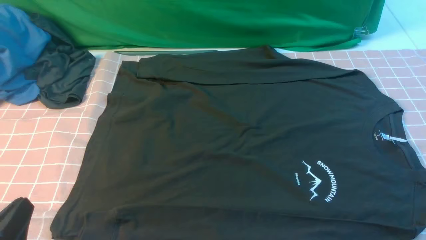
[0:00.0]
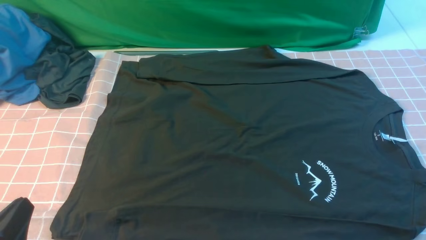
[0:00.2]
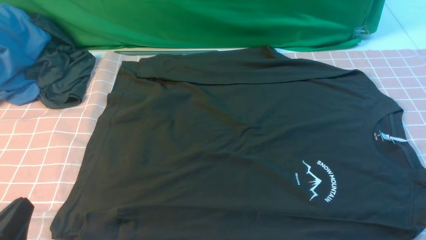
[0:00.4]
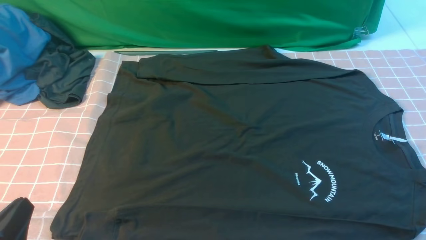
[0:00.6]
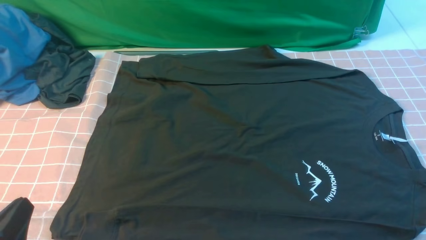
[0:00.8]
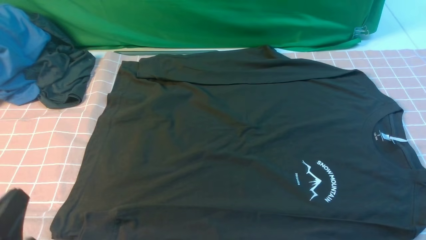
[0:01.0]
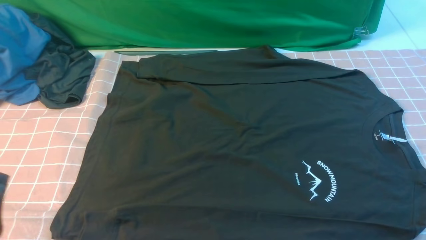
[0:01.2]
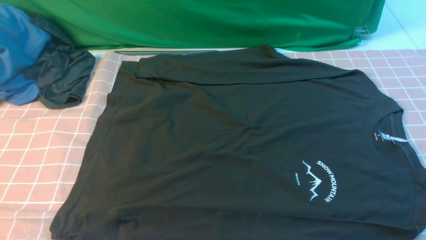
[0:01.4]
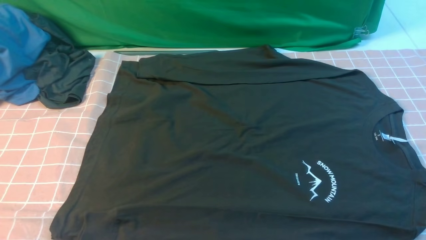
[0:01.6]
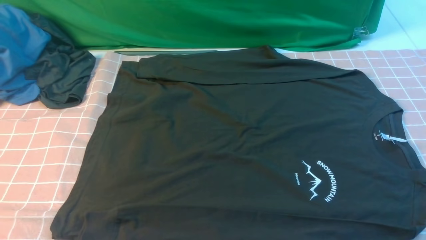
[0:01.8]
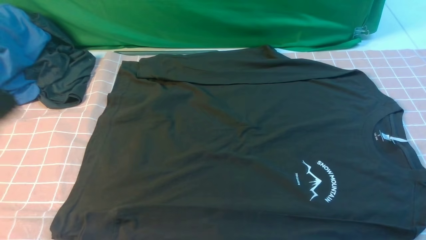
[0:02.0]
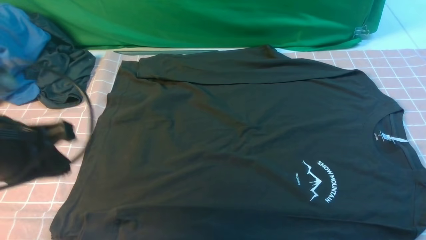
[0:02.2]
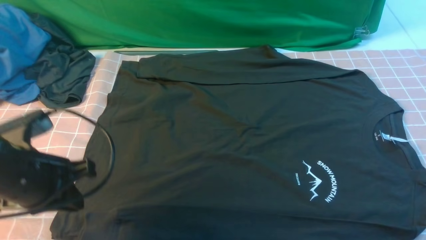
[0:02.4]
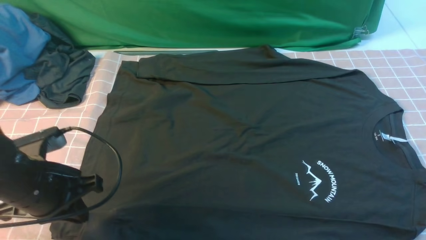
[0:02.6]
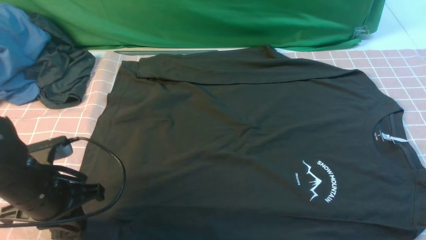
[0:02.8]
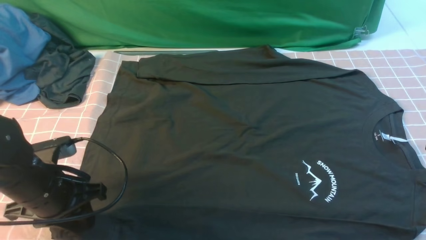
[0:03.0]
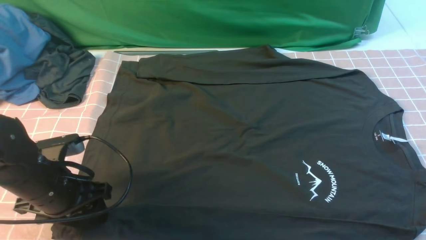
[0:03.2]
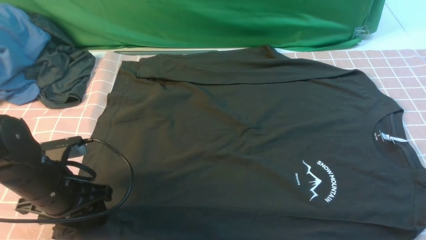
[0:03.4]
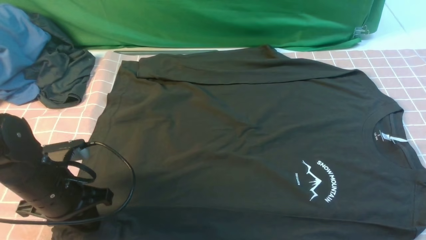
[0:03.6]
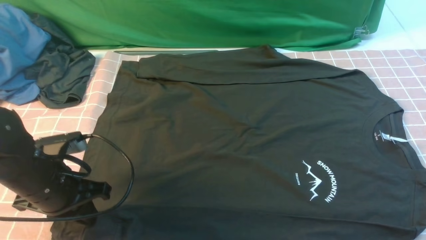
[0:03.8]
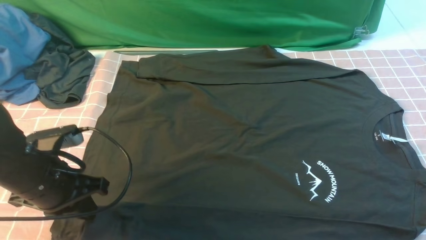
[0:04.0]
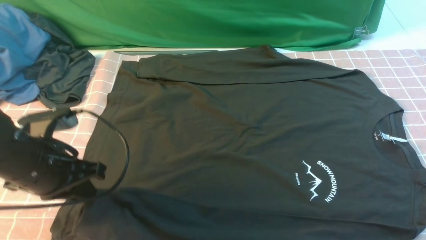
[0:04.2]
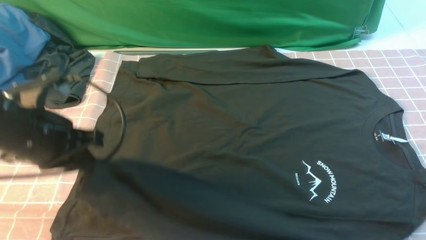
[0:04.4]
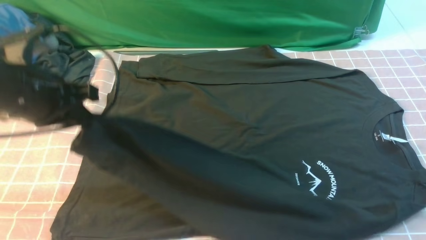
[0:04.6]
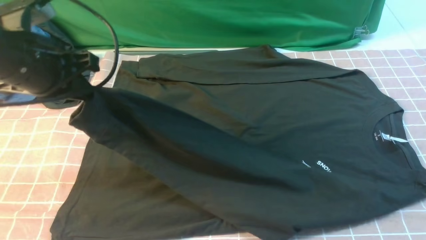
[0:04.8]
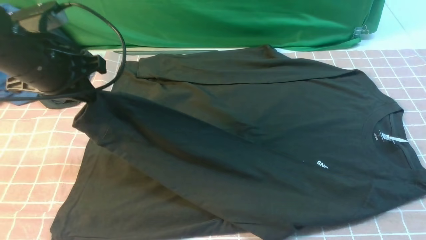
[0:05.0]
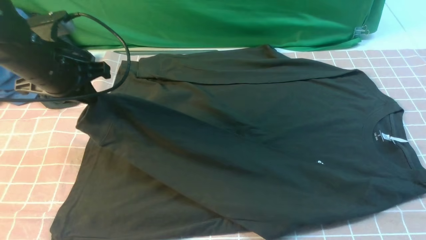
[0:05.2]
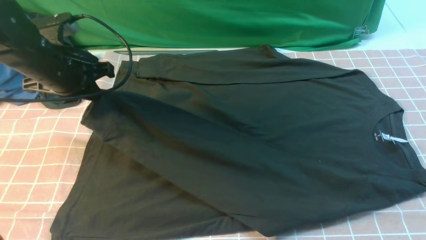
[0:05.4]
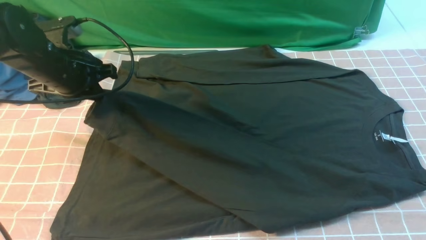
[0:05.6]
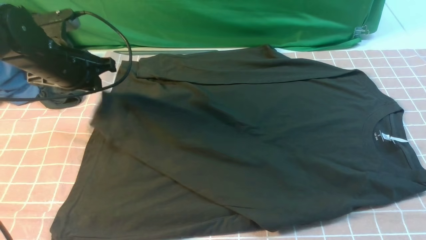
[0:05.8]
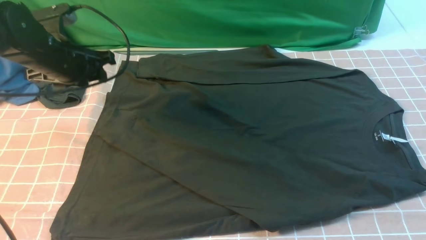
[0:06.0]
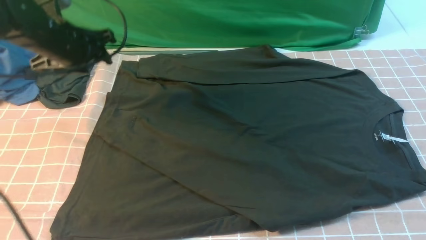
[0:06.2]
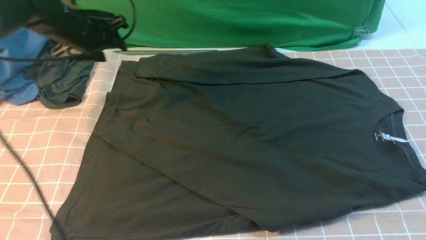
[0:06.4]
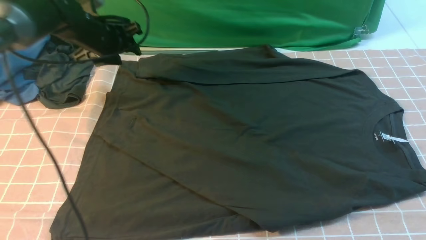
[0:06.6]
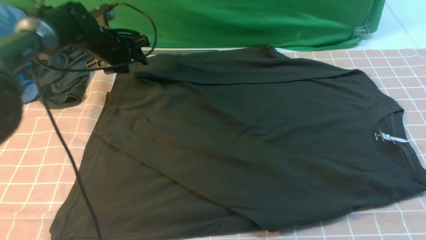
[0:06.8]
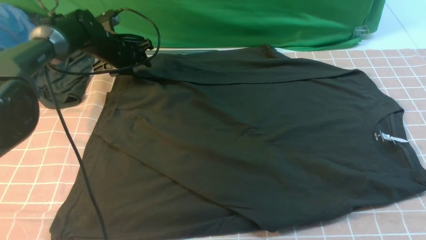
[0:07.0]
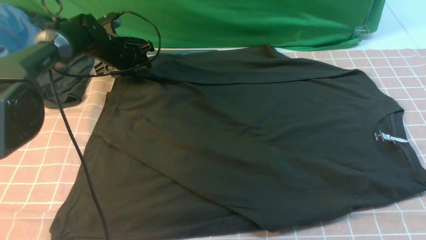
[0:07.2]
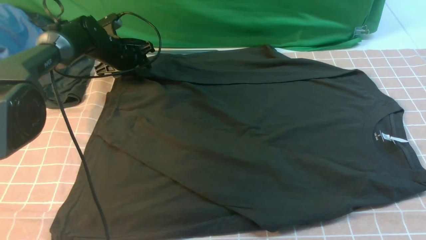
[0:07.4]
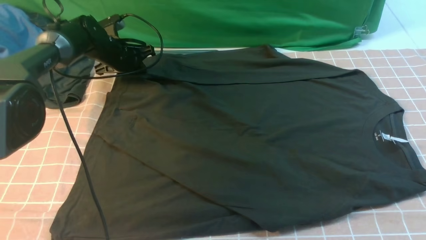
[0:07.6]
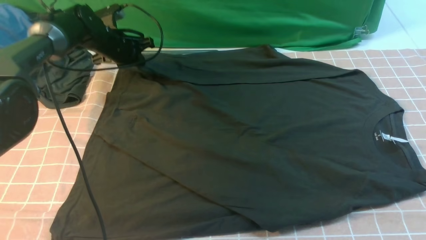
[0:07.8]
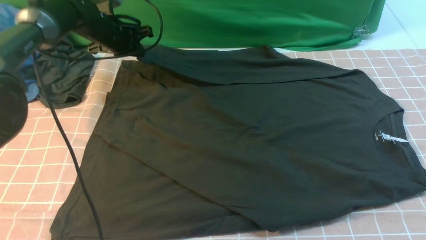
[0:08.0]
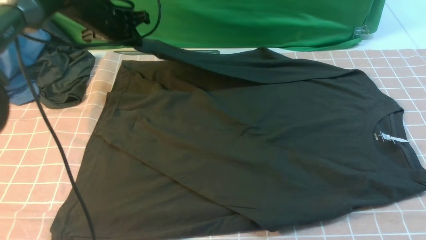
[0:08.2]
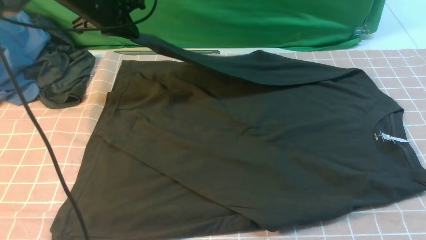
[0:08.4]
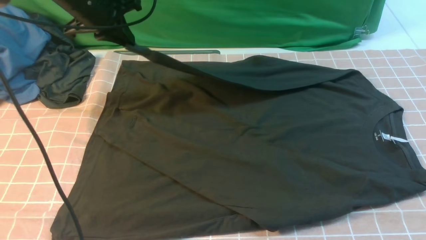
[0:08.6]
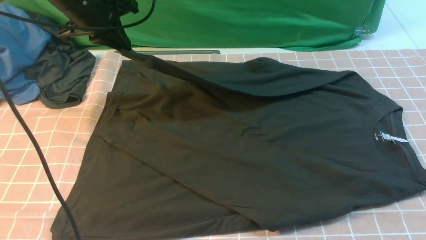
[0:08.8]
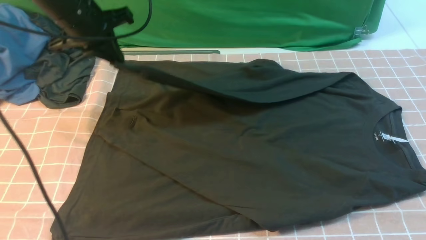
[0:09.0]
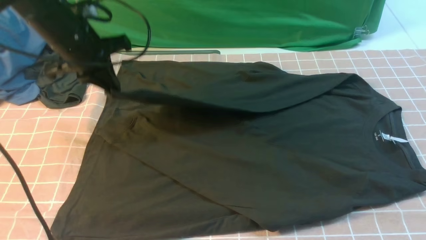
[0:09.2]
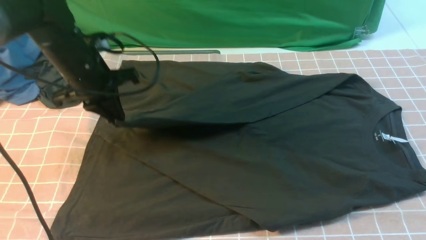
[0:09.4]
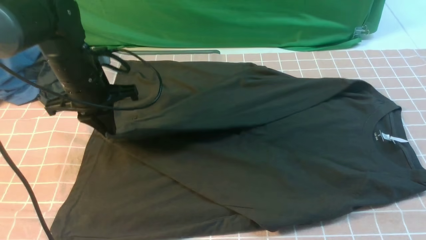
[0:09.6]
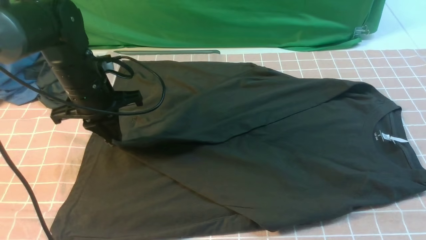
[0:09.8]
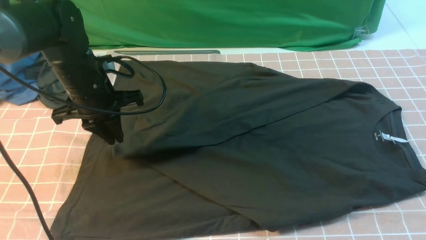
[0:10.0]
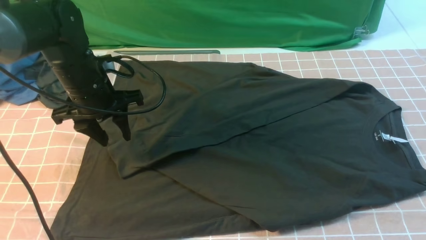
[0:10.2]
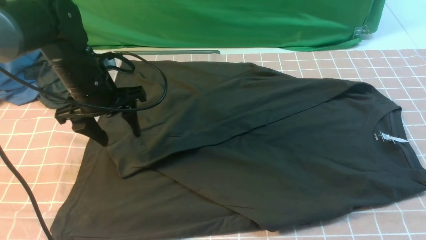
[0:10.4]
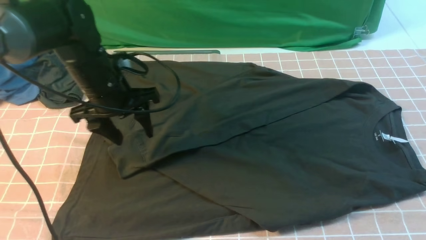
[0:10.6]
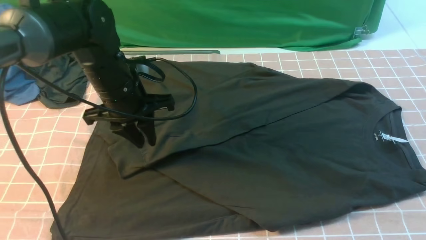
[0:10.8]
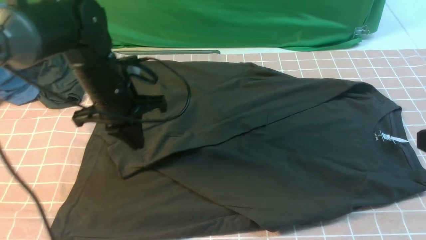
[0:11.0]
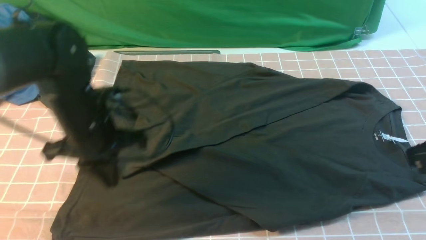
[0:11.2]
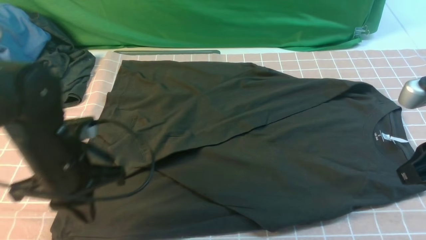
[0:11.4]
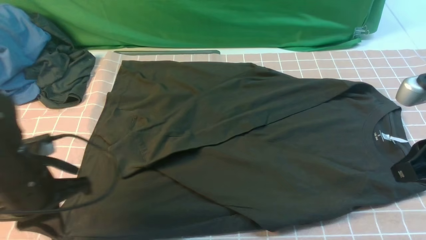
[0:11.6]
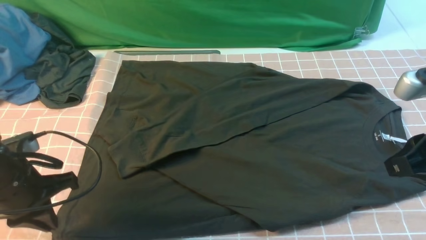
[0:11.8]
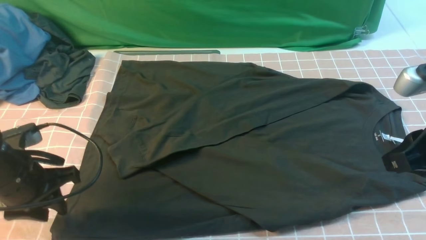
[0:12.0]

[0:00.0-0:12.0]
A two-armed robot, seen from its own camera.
Step, 0:00.0 to 0:04.0: use the left arm to clamp the cuff closest to it.
Step, 0:04.4 to 0:05.8: use the left arm to drag and place the cuff at the centered position on the left edge of the fabric.
Step, 0:06.2 to 0:10.2: use the left arm to drag and drop the cuff onto the cuff closest to the left arm.
0:00.0 to 0:01.6: The left gripper is displaced upward by roughly 10 cm.
0:01.6 to 0:03.0: The right gripper moves upward and forward, roughly 10 cm, and closes up. The left gripper is displaced forward and downward by some 20 cm, and opens its fingers.
0:03.0 to 0:04.4: The left gripper goes some 10 cm upward, and closes its fingers.
0:04.4 to 0:06.0: The left gripper goes about 15 cm forward, and opens up.
0:06.0 to 0:07.6: The left gripper goes about 20 cm forward and downward, and closes.
0:07.6 to 0:09.0: The left gripper heads upward and backward, covering approximately 20 cm.
0:09.0 to 0:10.4: The left gripper shifts approximately 10 cm downward and backward, and opens.
0:10.4 to 0:12.0: The left gripper goes about 15 cm backward and to the left, and closes, then opens again; the right gripper heads forward, covering approximately 5 cm.

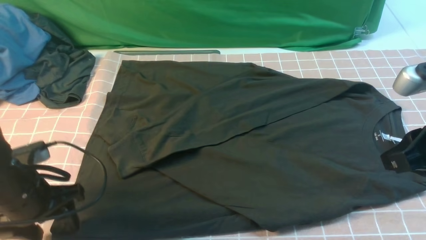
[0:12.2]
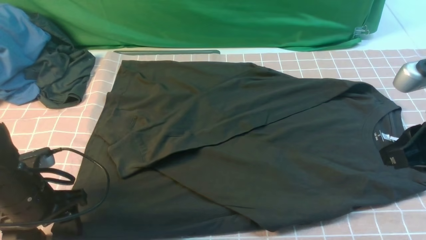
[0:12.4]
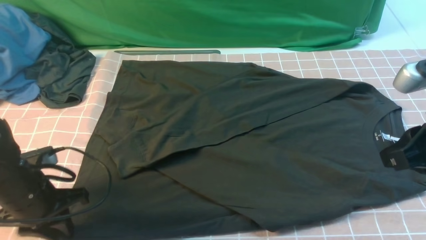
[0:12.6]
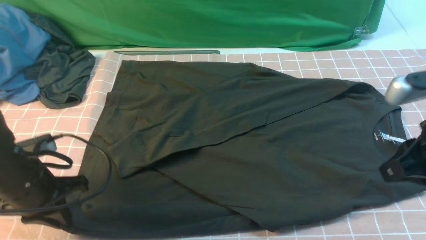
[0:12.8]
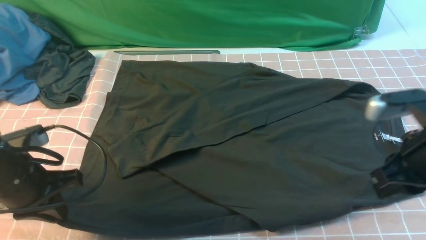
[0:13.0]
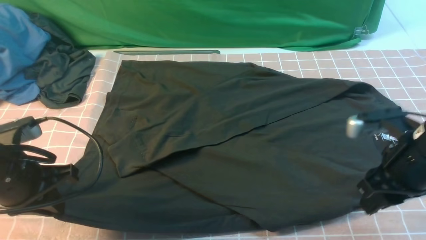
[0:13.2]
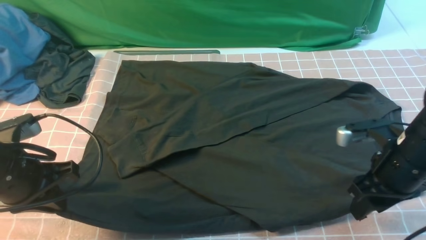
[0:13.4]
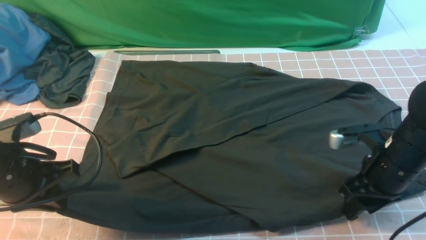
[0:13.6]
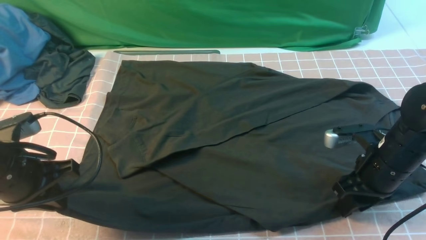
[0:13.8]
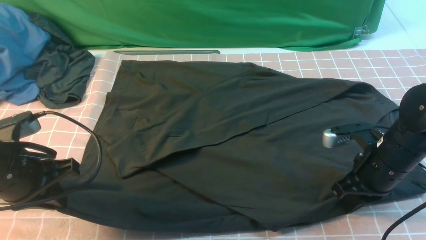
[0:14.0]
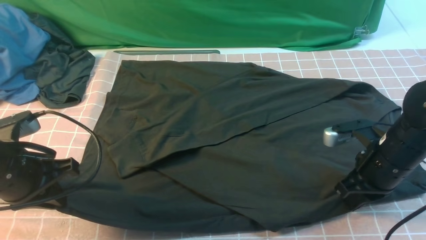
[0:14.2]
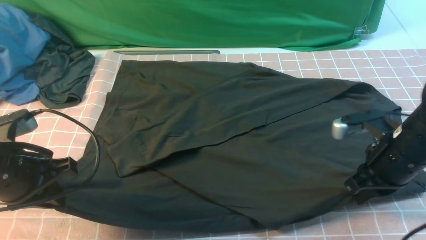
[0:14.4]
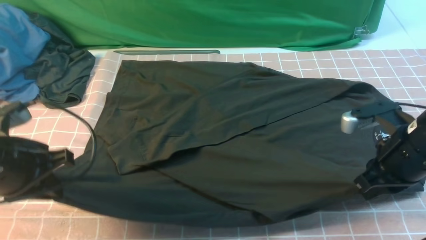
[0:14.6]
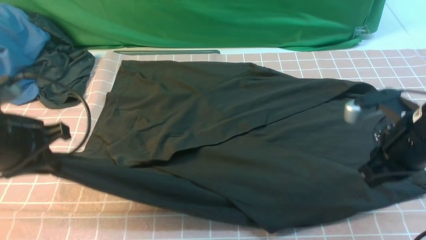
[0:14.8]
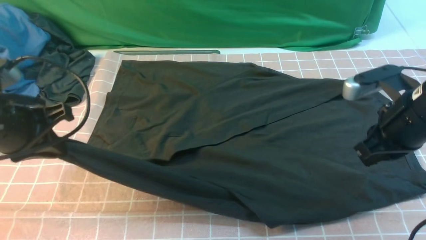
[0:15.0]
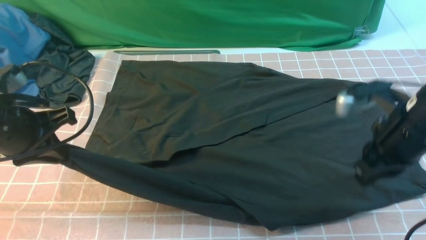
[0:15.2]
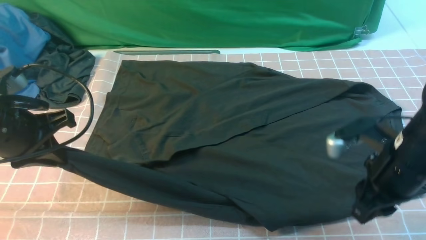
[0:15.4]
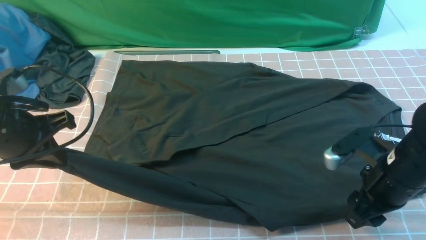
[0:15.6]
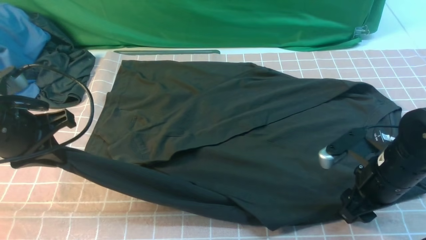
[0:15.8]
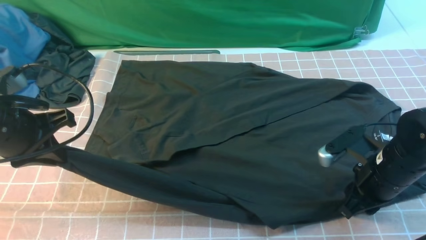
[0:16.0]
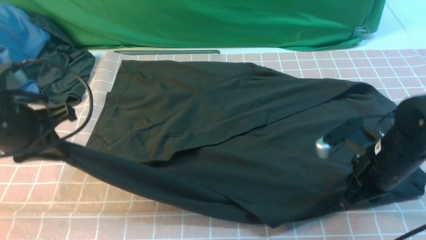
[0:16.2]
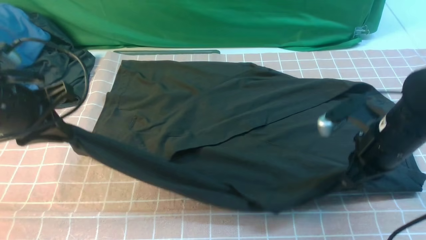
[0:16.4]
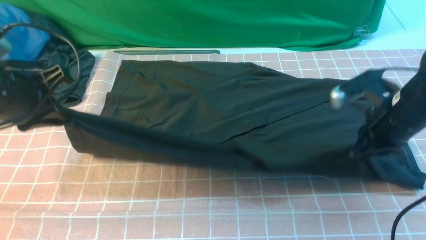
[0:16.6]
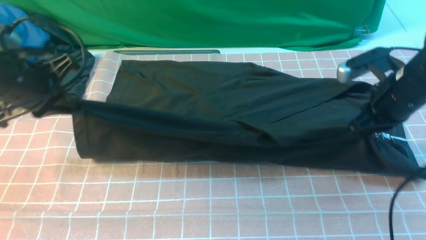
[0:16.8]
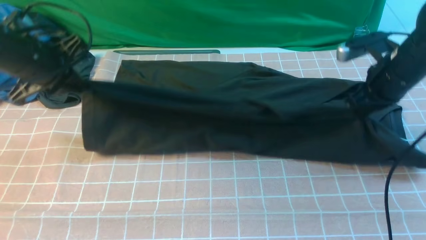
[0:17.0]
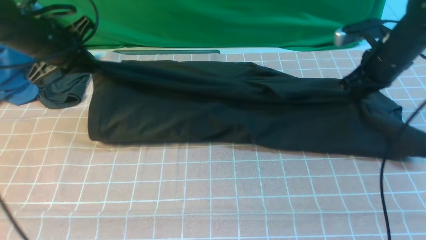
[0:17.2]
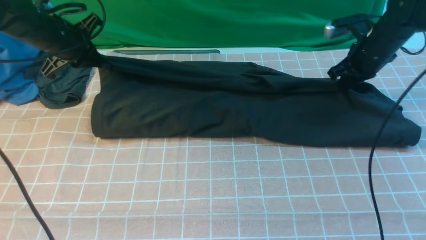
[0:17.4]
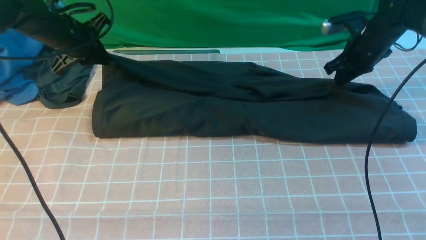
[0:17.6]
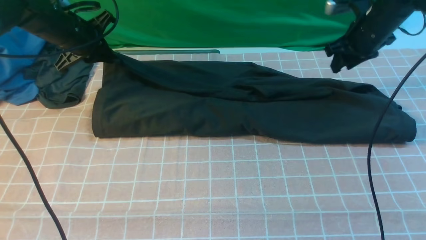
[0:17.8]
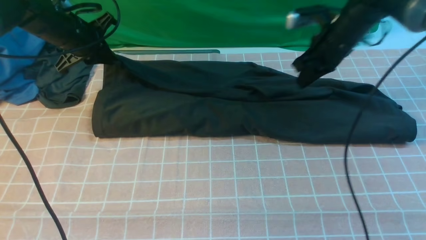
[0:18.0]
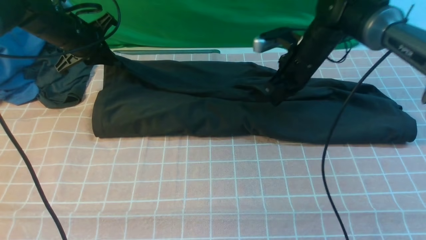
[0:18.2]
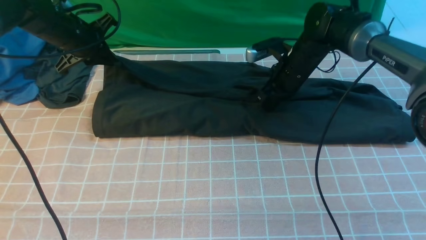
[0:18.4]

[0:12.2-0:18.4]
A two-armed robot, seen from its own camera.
Step, 0:12.2 to 0:16.4: use both arms simultaneously to clamp the lower edge of the clothing fabric.
0:12.2 to 0:13.8: The right gripper moves downward and forward, about 15 cm, and opens. Meanwhile the left gripper travels upward by about 5 cm, and closes.
0:13.8 to 0:15.4: The right gripper closes and opens again. The left gripper changes place by approximately 5 cm.
0:15.4 to 0:16.8: Both grippers move forward, some 10 cm. The right gripper closes.
0:16.8 to 0:18.4: The right gripper shifts approximately 20 cm forward, to the left and downward. Meanwhile the left gripper shifts about 15 cm forward.
